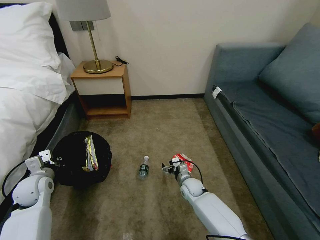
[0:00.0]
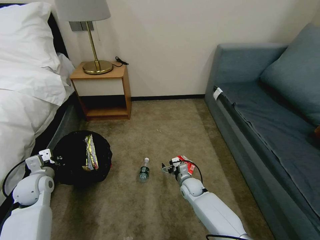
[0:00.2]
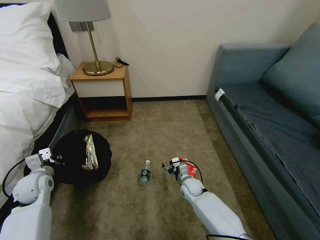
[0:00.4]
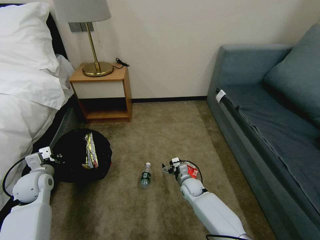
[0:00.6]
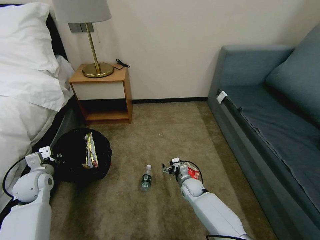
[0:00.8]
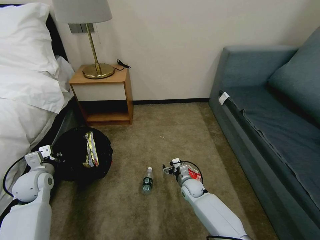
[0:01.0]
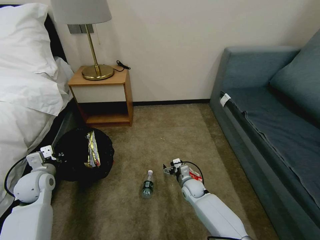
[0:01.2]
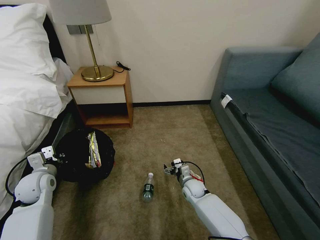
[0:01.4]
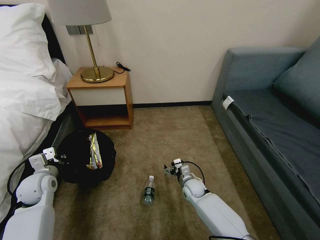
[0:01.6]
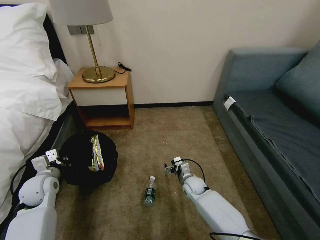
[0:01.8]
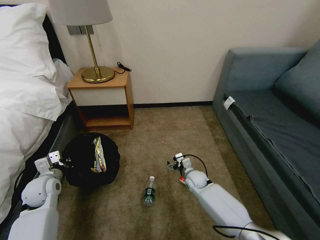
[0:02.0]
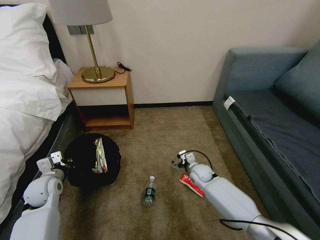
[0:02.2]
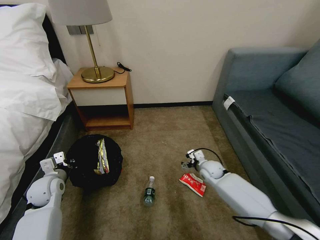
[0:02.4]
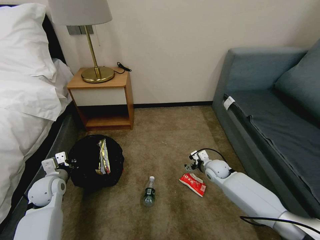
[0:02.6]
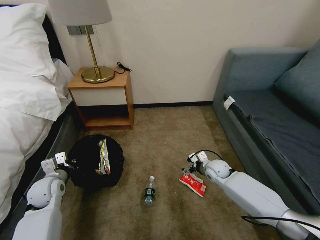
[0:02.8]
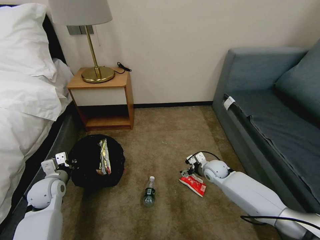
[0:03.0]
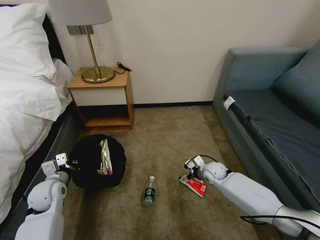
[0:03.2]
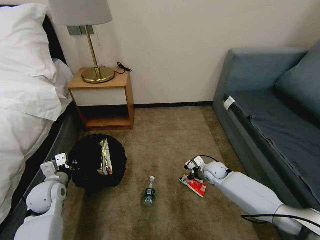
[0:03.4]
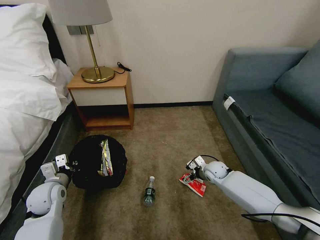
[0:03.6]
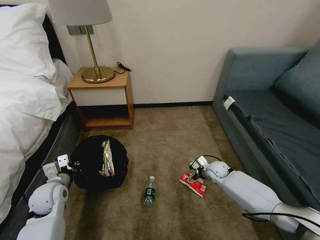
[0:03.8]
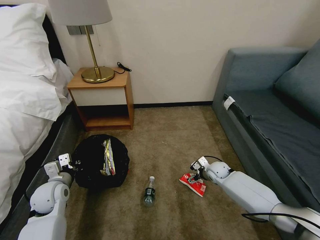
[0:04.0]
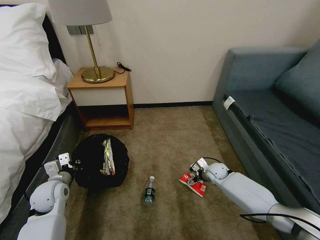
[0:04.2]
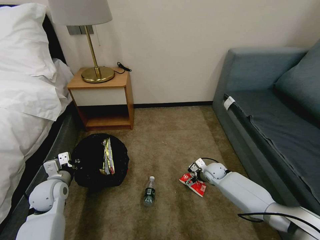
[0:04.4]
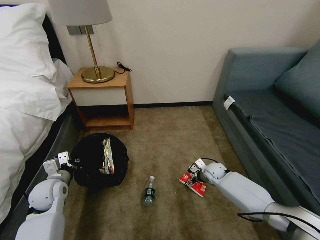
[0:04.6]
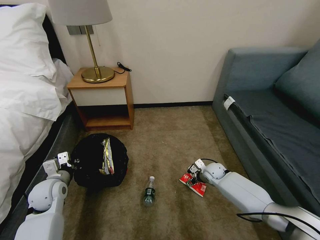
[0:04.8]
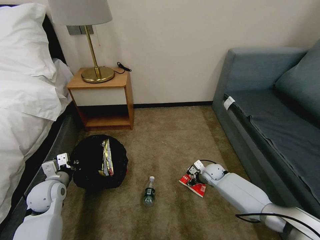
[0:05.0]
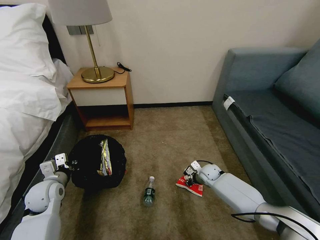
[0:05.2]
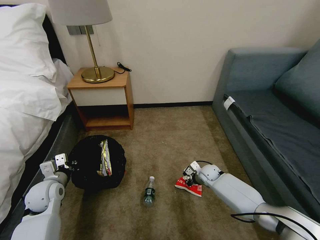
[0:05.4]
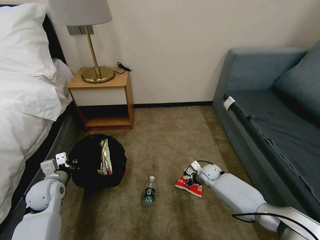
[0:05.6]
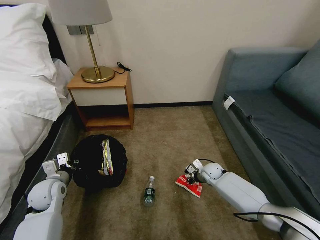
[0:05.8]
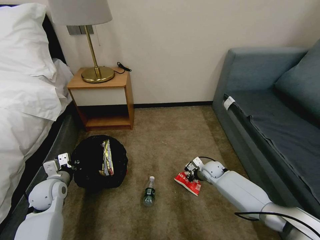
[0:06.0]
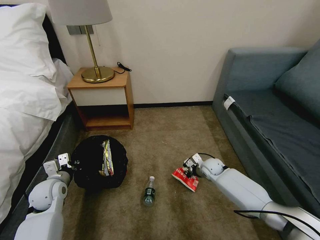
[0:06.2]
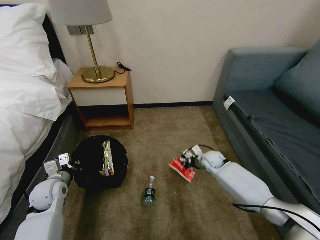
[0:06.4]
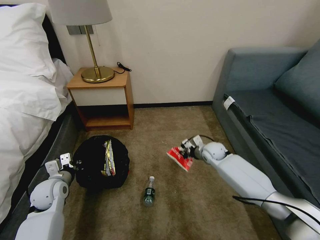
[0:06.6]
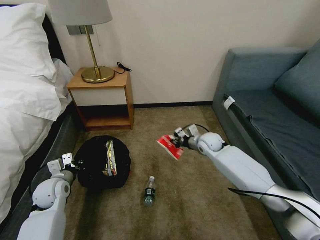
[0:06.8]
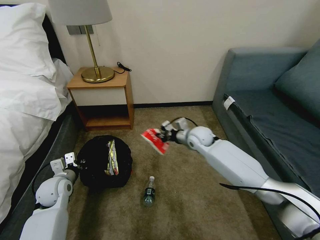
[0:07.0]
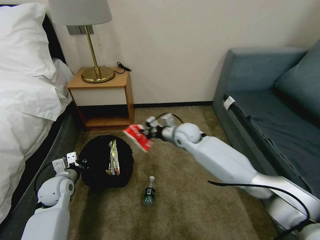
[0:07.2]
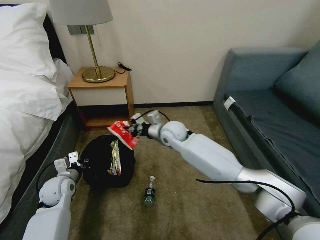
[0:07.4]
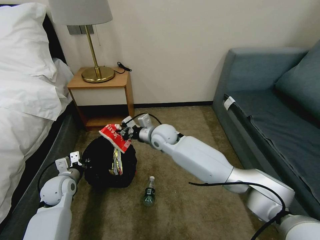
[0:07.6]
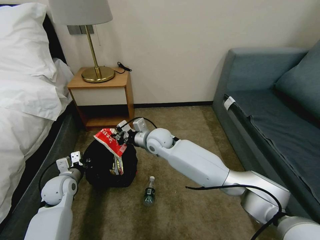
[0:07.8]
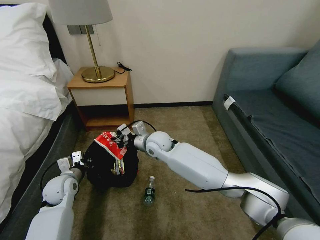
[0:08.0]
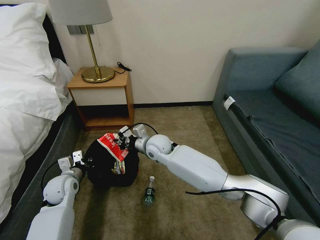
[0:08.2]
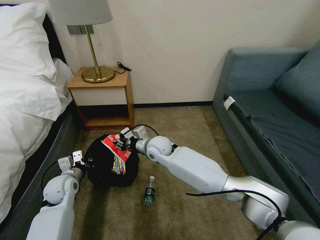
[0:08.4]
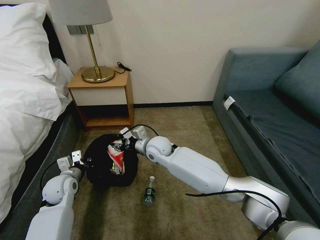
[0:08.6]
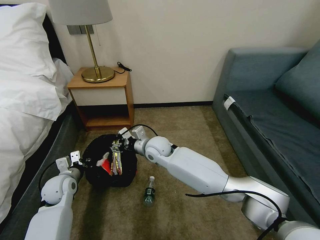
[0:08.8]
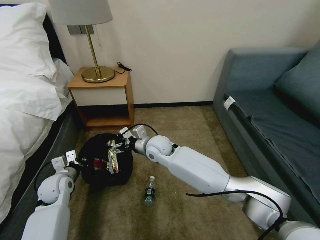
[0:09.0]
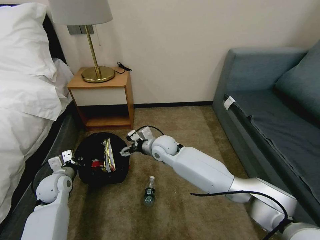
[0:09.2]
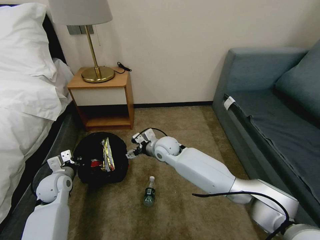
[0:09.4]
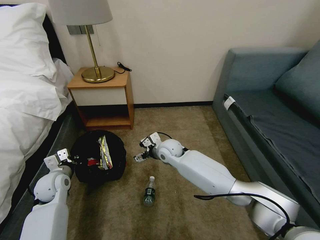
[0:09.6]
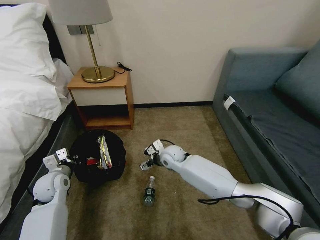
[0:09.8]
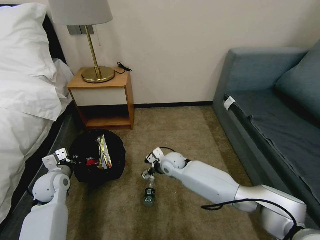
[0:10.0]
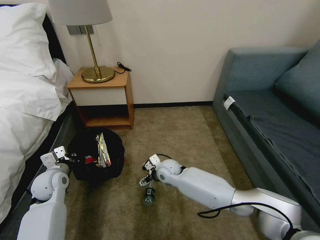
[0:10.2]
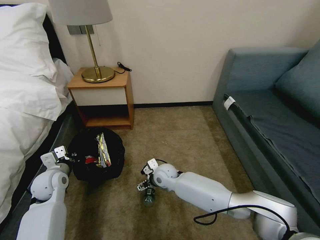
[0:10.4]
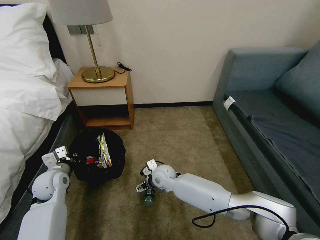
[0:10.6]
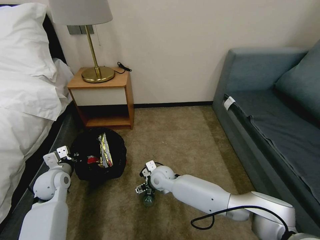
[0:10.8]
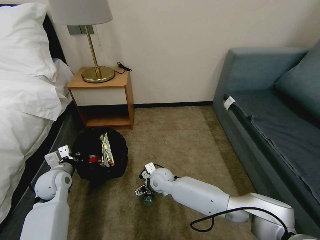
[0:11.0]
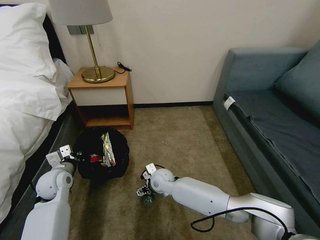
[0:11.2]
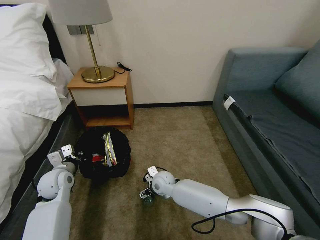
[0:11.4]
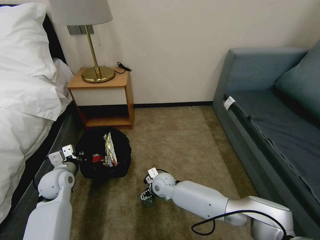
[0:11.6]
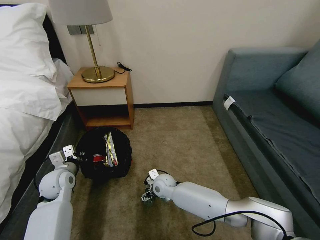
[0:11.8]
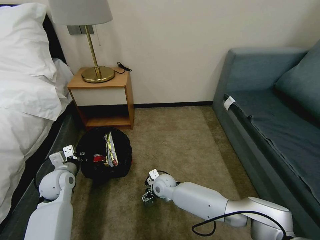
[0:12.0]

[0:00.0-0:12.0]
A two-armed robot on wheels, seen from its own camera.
Task of the whole recording: Pick up the trash bin, then pick up the garbage on the floor and place it into the trash bin.
0:01.6 to 0:03.0: The right gripper moves to the right and upward, roughly 15 cm.
0:03.0 to 0:04.4: The right gripper shifts by some 5 cm.
0:04.4 to 0:06.0: The right gripper closes.
0:06.0 to 0:07.6: The right gripper is displaced to the left and upward by some 35 cm.
0:07.6 to 0:09.0: The right gripper opens.
0:09.0 to 0:10.4: The right gripper moves downward, about 15 cm.
0:10.4 to 0:12.0: The grippers move only a little.

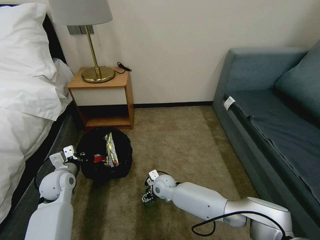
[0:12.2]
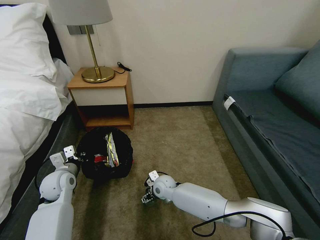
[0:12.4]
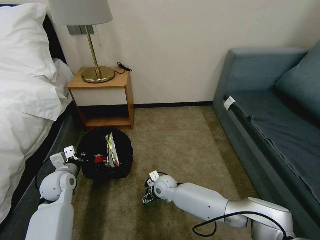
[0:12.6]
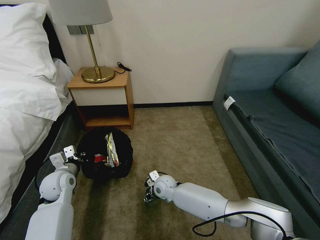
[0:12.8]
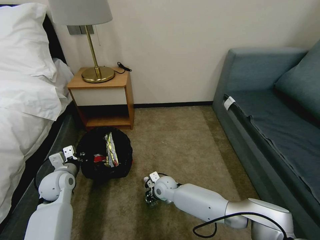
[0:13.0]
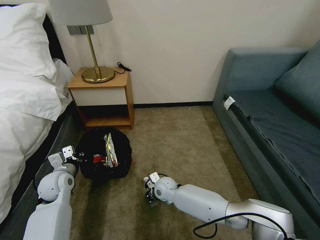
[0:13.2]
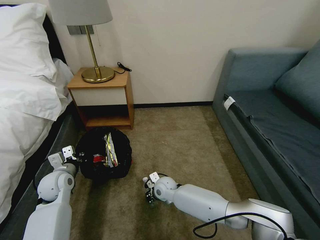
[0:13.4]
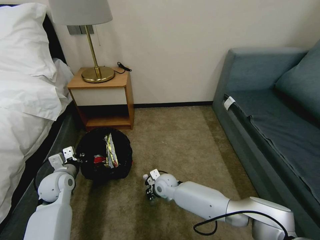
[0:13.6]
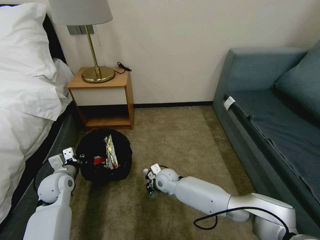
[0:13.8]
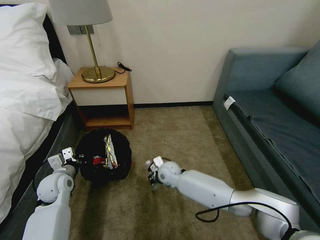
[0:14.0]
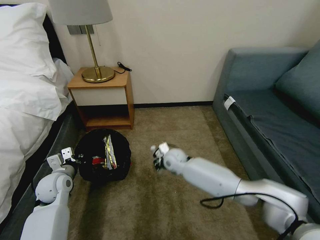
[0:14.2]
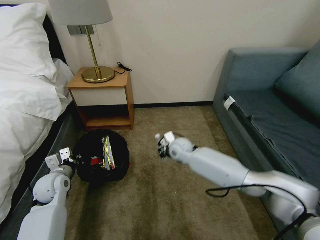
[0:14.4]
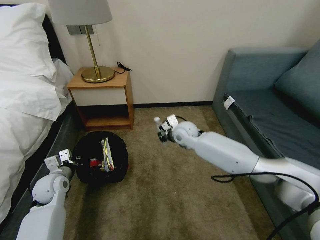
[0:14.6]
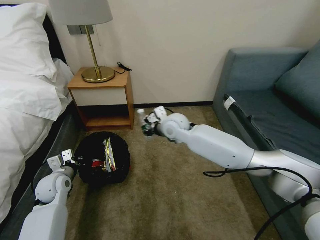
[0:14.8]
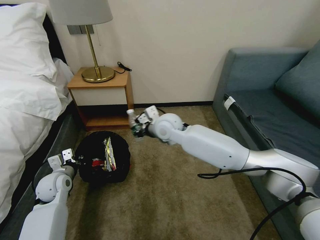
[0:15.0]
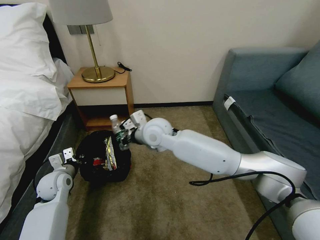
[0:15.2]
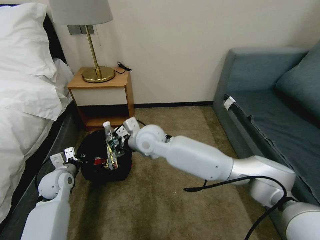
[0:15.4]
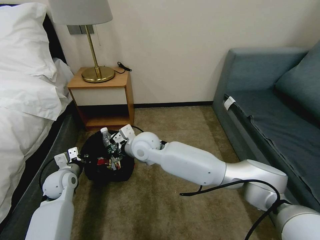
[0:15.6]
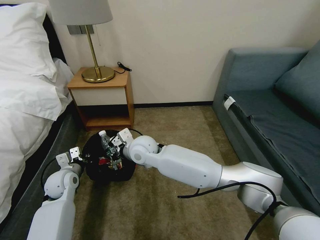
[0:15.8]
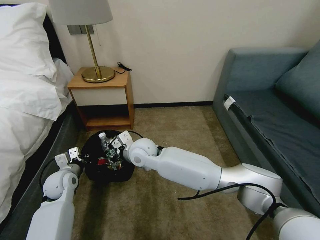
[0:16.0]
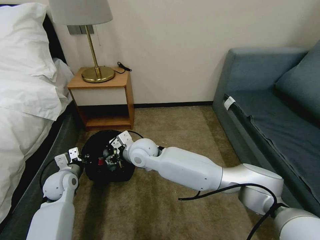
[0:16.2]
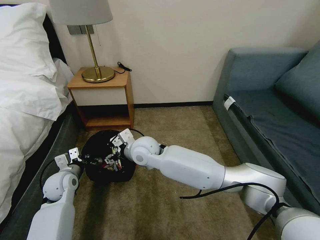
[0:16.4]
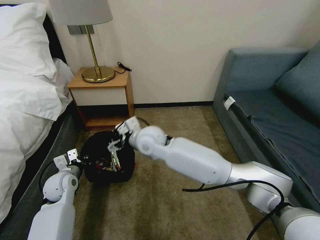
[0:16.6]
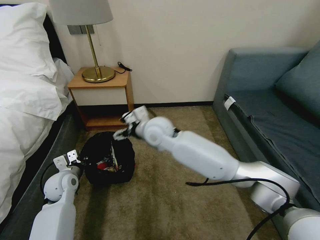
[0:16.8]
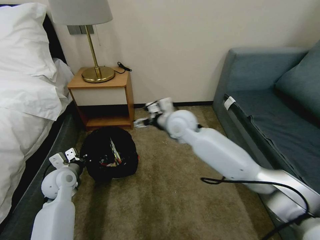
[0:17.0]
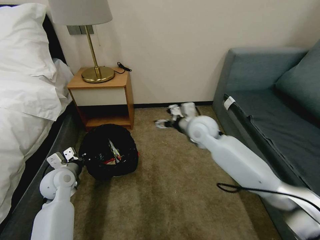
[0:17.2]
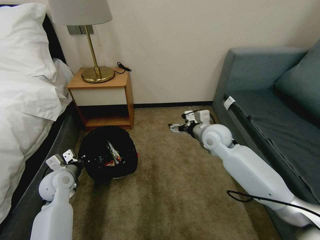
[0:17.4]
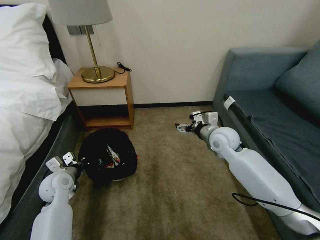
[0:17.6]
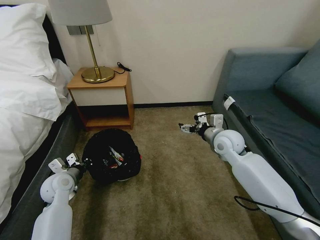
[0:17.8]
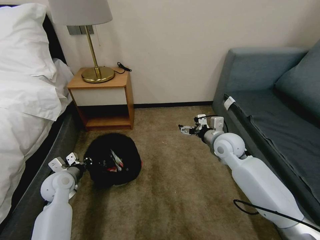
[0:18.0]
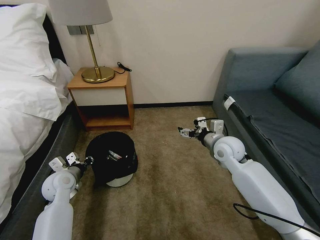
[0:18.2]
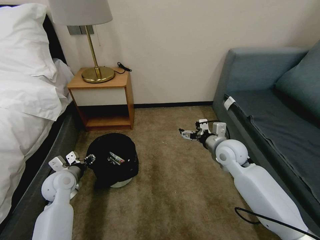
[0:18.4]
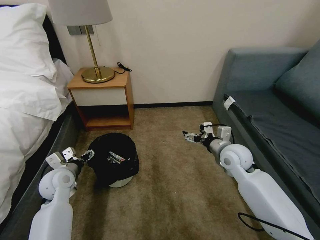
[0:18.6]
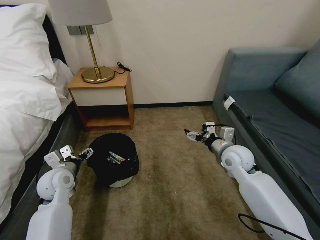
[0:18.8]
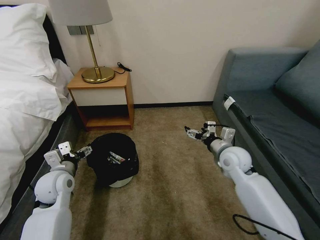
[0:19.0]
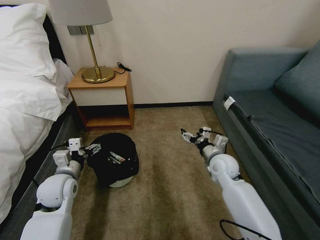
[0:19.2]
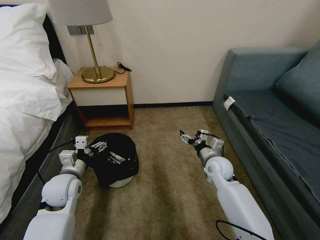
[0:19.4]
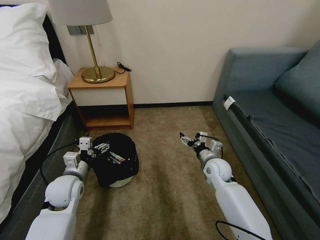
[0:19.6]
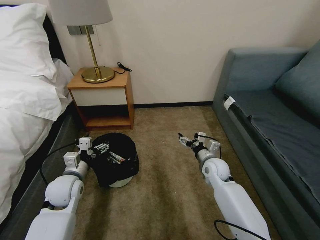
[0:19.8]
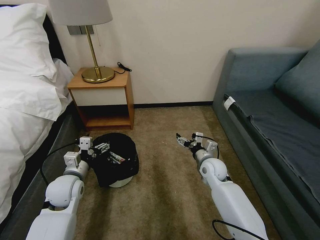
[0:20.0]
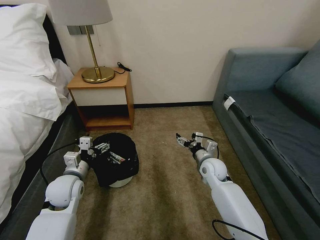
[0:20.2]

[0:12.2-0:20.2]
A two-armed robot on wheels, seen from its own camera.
Task of the whole recording: Pick up the trash bin, then pick up the garbage on the floor and place it into the trash bin.
0:12.2 to 0:13.8: The right gripper closes its fingers.
0:13.8 to 0:15.4: The right gripper travels upward by approximately 25 cm.
0:15.4 to 0:17.0: The right gripper goes approximately 10 cm to the right, and opens.
0:17.0 to 0:18.6: The right gripper heads to the right and downward, covering approximately 20 cm; the left gripper opens up.
0:18.6 to 0:20.2: The right gripper heads downward, covering approximately 10 cm.
